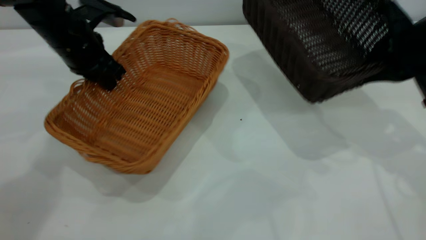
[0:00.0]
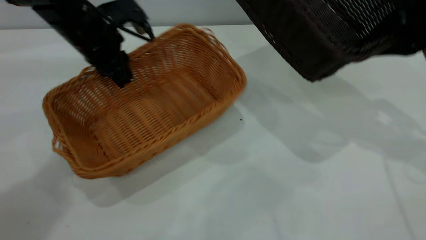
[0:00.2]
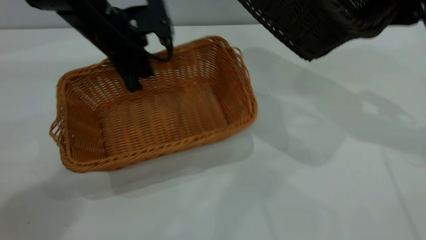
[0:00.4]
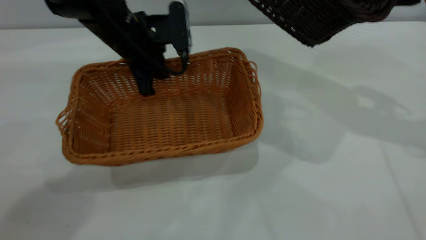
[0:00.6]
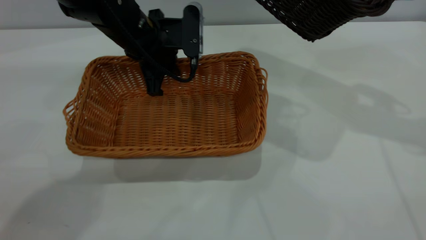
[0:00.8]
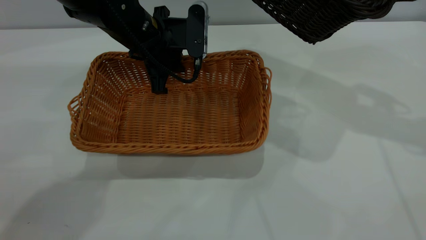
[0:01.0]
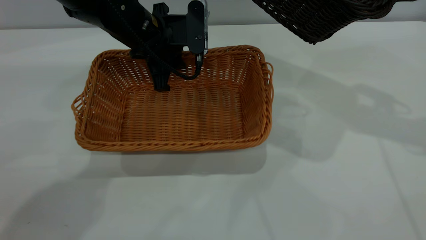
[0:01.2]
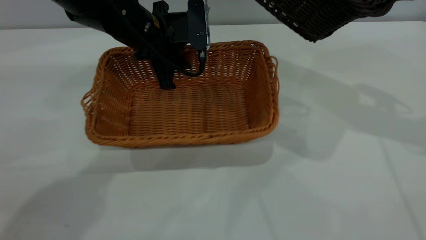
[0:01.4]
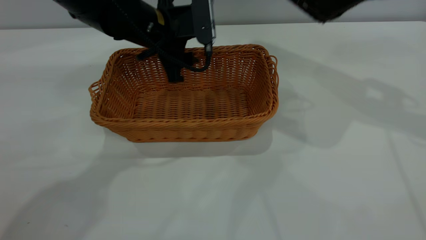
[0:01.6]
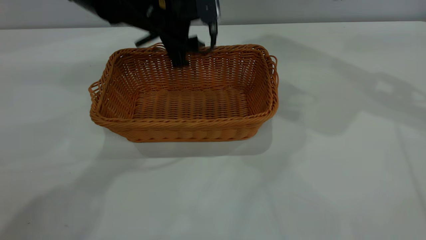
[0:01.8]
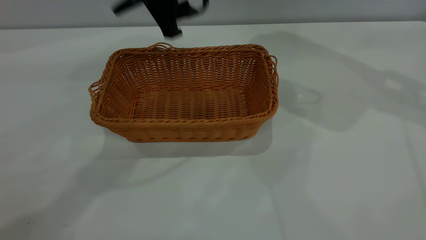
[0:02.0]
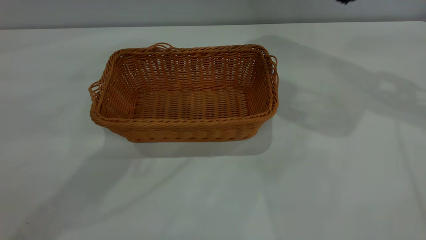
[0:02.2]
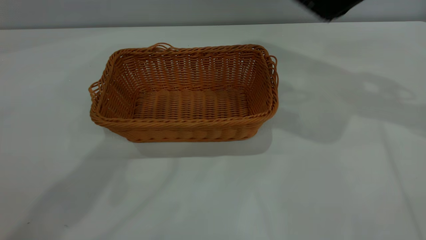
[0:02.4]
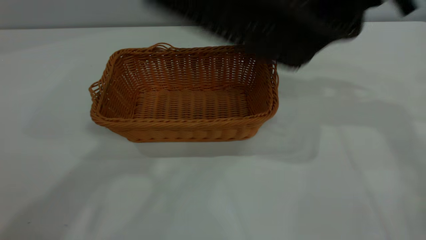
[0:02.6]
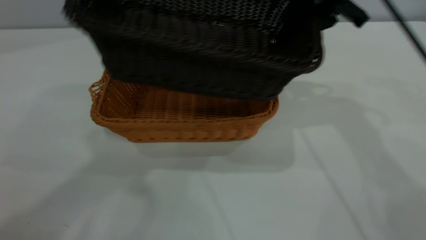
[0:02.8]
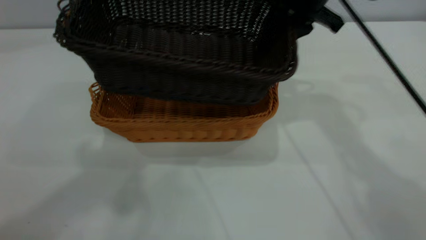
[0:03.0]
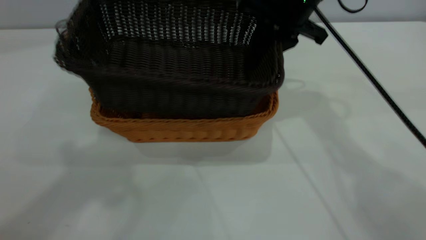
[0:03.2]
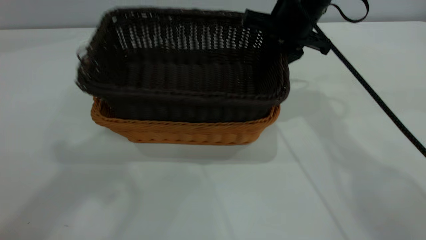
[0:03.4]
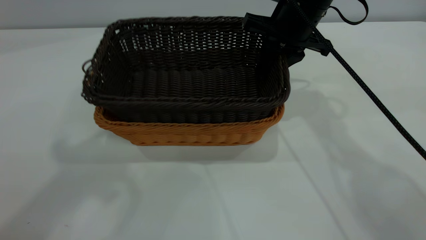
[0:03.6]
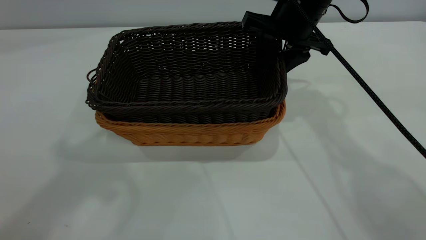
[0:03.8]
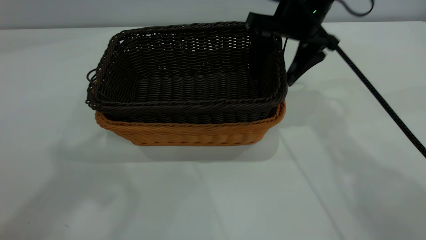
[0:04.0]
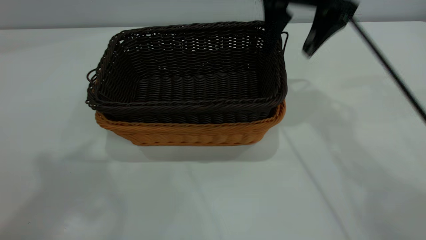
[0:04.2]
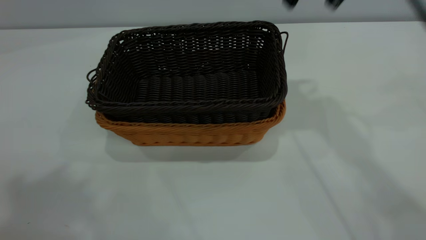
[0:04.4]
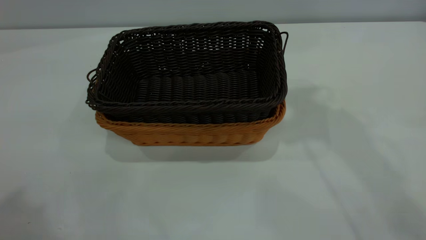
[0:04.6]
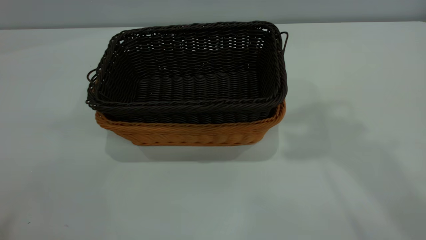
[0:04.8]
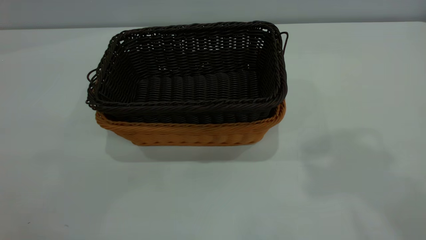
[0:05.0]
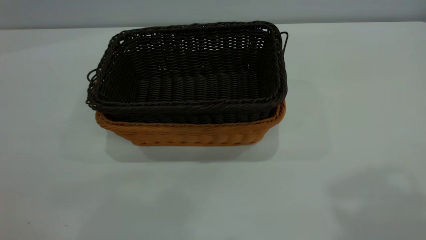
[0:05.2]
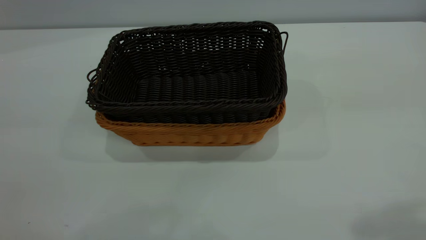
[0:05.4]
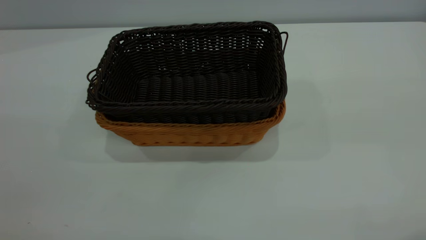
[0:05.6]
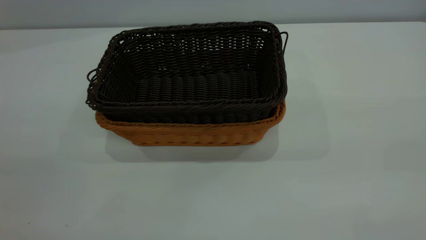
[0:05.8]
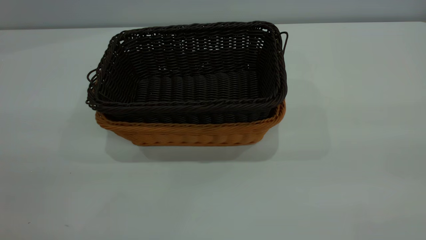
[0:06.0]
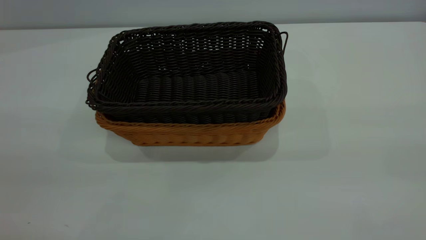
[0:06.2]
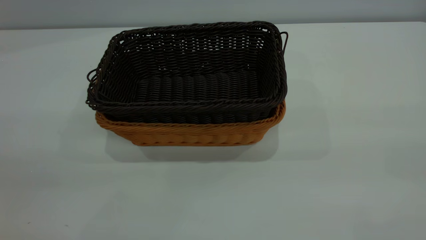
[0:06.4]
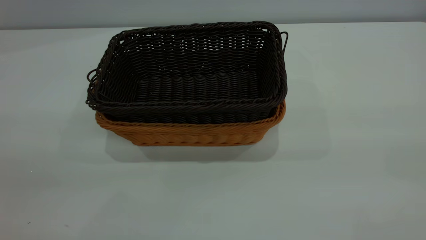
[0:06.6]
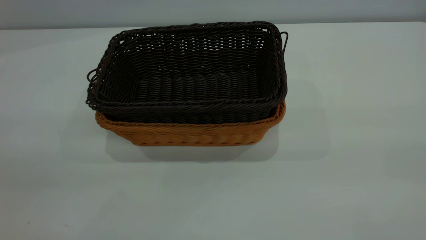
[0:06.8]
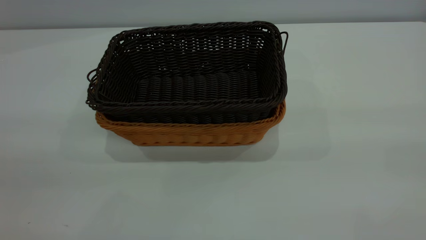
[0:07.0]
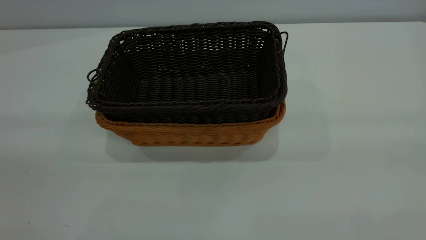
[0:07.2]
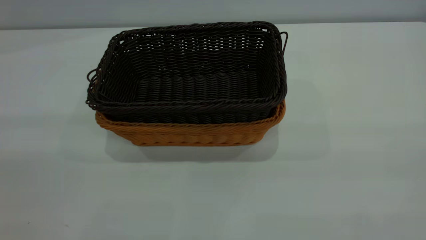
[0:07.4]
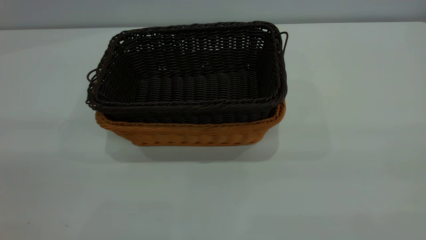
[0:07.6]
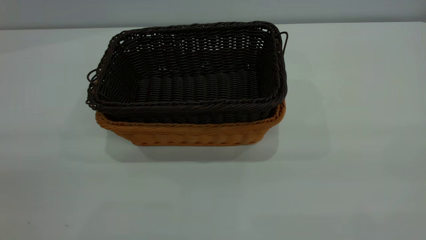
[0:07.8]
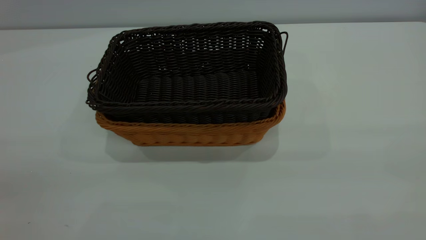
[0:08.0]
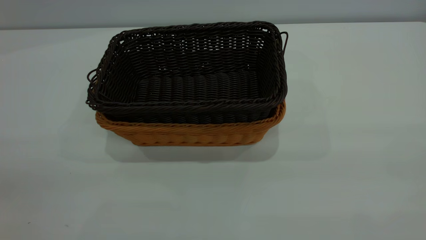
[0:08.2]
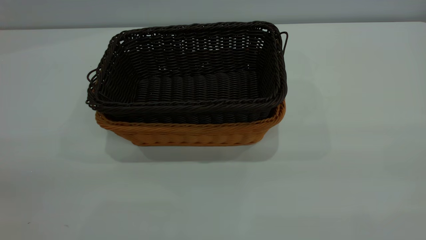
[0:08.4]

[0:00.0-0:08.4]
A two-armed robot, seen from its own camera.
Task of the whole recording: the left gripper grasp the brown basket and place it in the center of the table, the right gripper grasp the black basket and place it inside the brown one.
Step, 0:00.0 to 0:01.8: Place the light-colored basket in the center.
Step, 0:02.0 to 0:04.2: Place the dark basket on top of the light basket.
0:00.0 to 0:01.4: The right gripper travels upward and forward by about 10 cm, while the left gripper is displaced to the right by approximately 10 cm, and opens.
0:01.4 to 0:02.8: The left gripper travels upward and backward by roughly 40 cm; the right gripper is displaced to the left by about 15 cm.
0:02.8 to 0:04.2: The left gripper ends up roughly 5 cm from where it was. Meanwhile the right gripper reaches some 5 cm downward, then returns, and opens up.
0:04.2 to 0:05.6: The right gripper shifts approximately 30 cm backward.

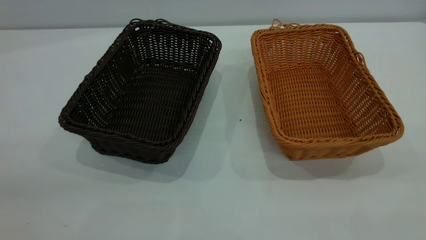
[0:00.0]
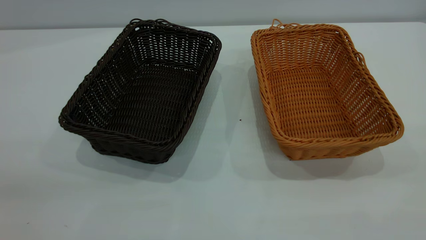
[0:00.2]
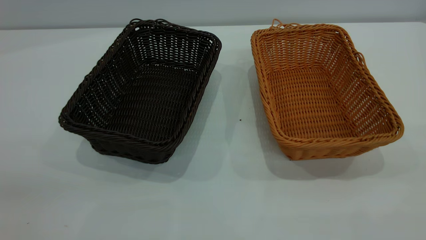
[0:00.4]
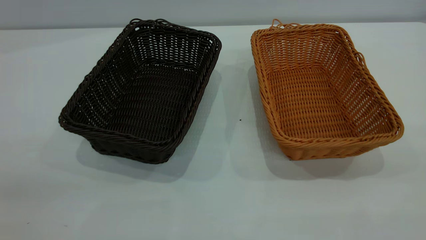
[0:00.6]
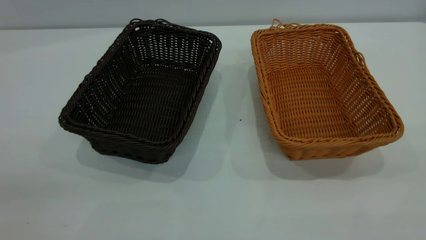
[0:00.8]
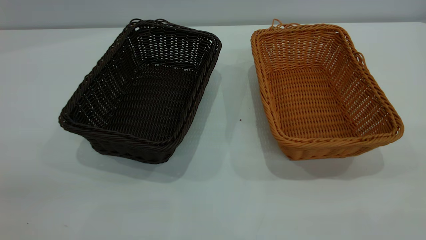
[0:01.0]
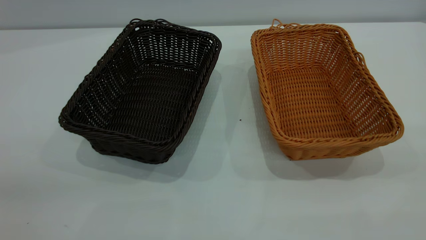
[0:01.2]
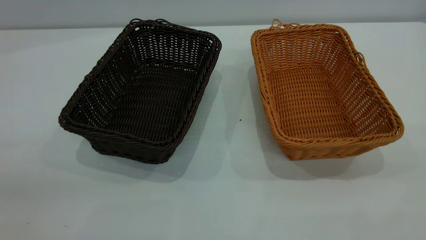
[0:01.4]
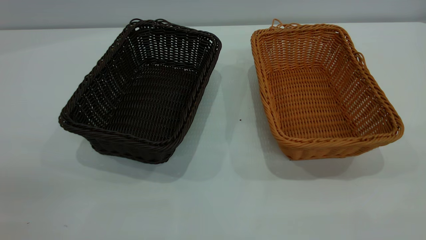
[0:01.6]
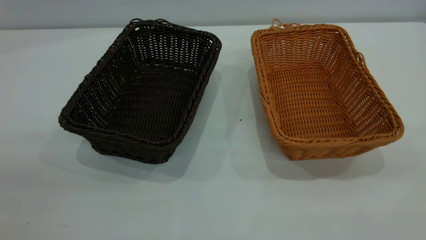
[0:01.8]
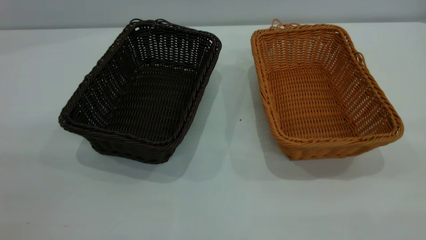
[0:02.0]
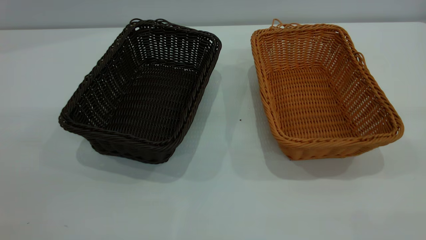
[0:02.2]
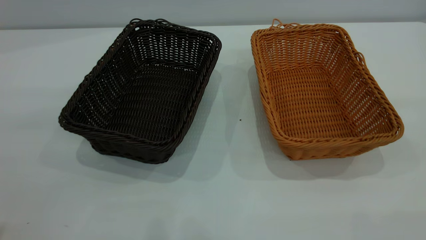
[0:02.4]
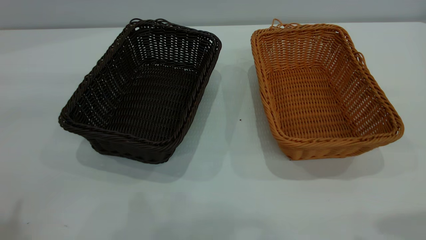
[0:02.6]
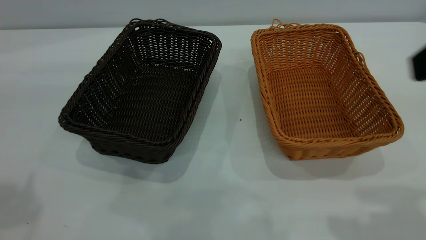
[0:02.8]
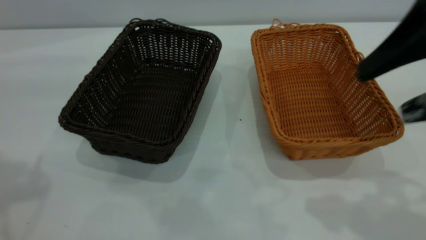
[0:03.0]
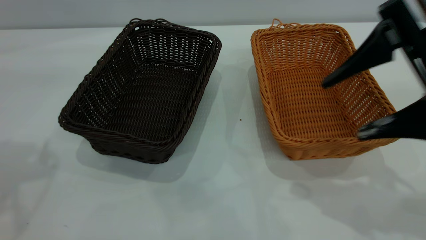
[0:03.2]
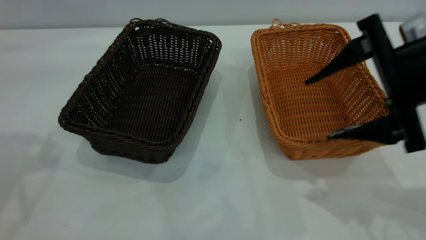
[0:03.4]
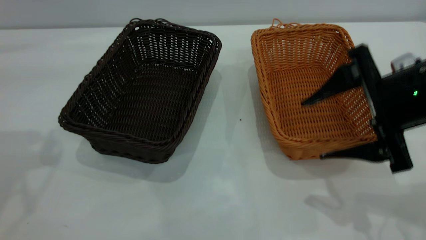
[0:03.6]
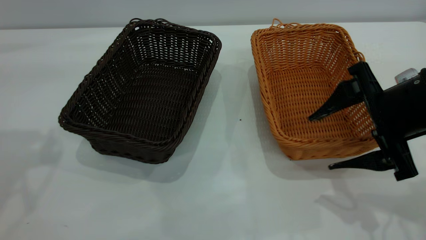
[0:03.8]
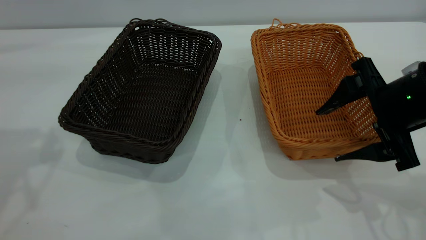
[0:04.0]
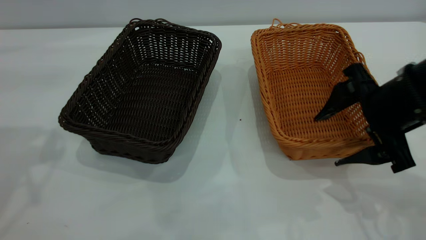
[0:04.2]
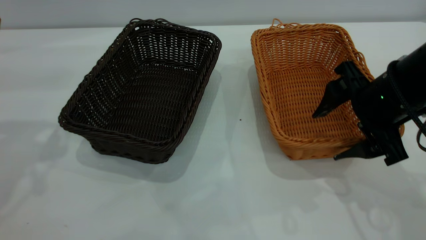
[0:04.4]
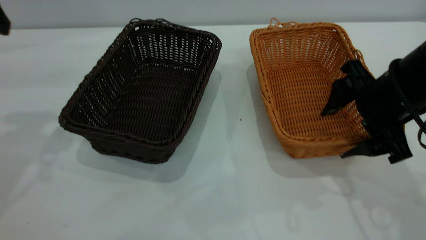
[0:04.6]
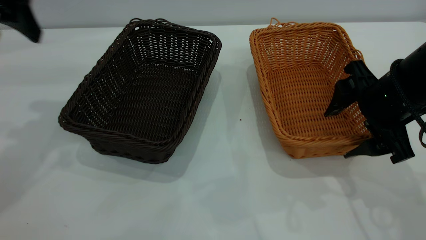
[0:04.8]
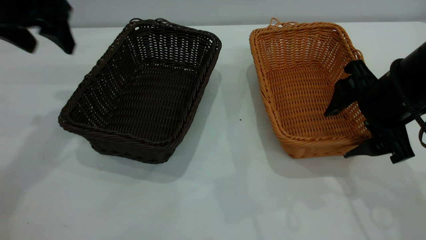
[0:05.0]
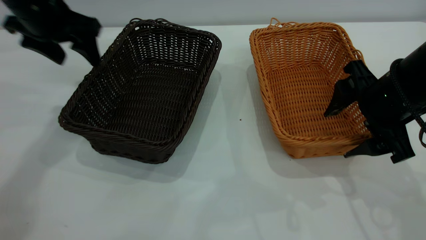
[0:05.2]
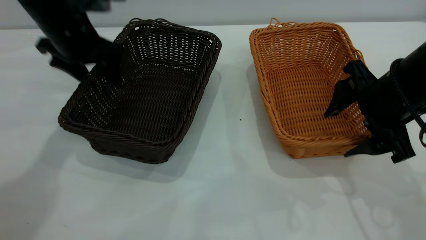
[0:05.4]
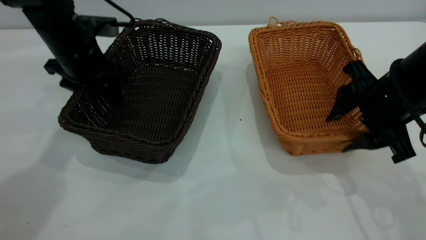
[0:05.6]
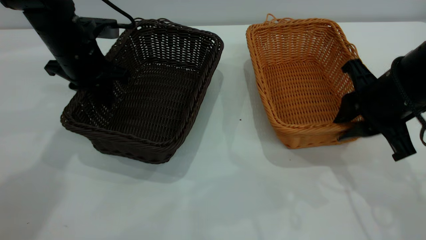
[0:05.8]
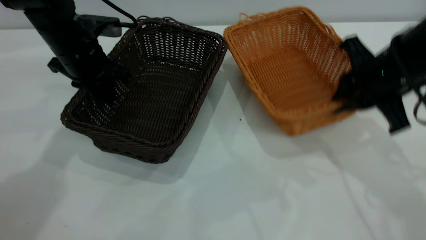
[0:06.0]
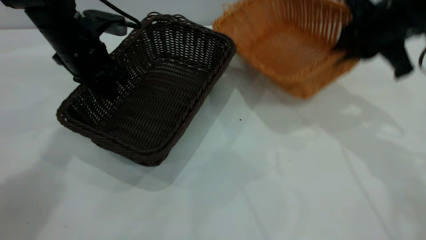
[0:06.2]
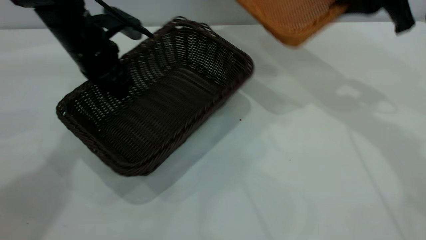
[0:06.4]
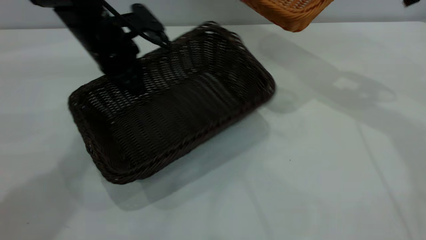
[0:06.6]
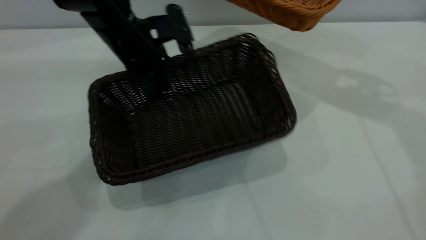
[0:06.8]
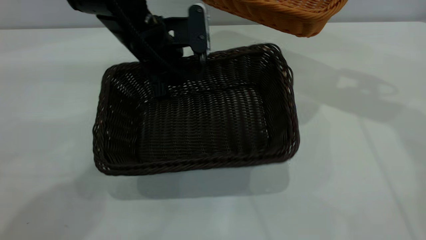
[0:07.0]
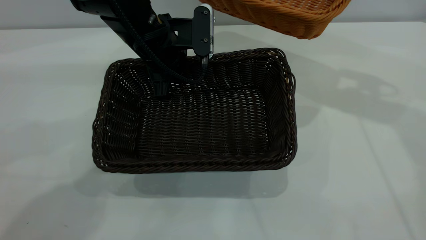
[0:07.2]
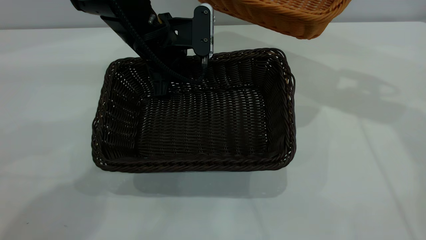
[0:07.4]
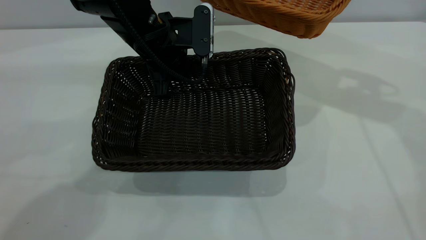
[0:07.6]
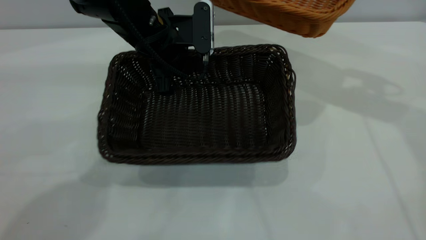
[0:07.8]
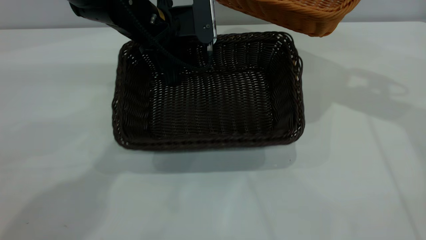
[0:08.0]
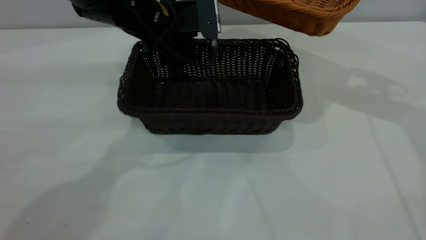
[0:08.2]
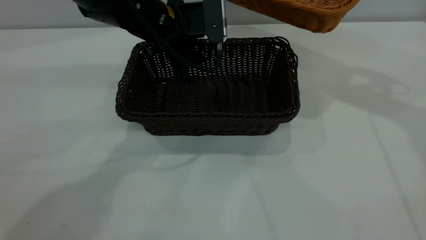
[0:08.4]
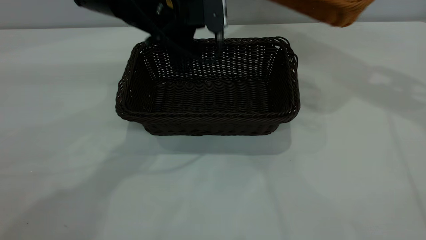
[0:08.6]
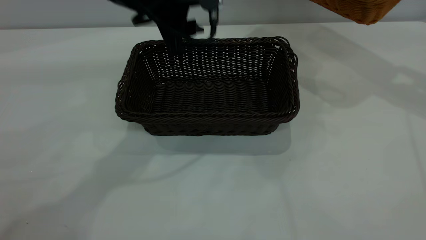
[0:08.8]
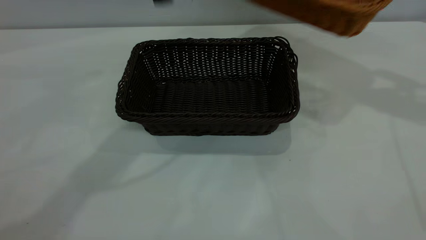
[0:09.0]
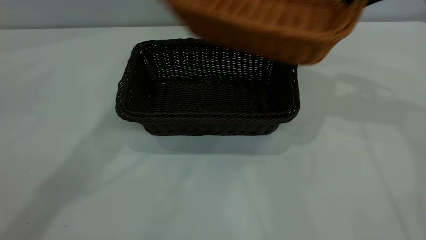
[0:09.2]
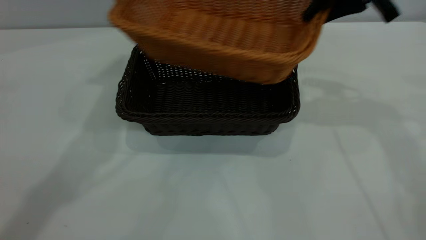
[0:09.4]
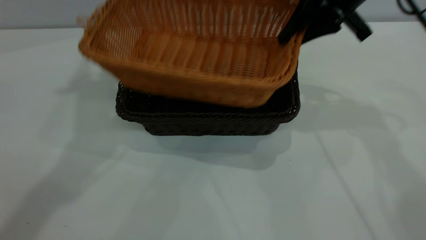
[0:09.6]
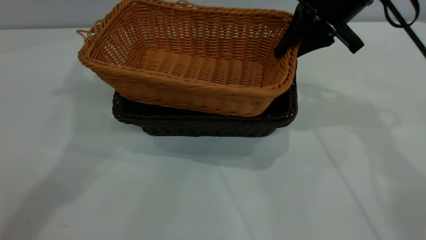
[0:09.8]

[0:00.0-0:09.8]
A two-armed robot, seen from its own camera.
Task of the whole recording: the left gripper grasp the black basket and place it in the center of the table, the right gripper grasp the brown basket and place it inside the black one.
Step, 0:02.8 to 0:05.6: Grasp the light basket with right gripper.
Step, 0:06.0 to 0:08.2: Place the dark basket in the center of the table with left gripper.
0:00.0 to 0:01.4: Both grippers stay put.
0:02.8 to 0:04.2: The right gripper shifts about 20 cm downward and forward.
0:04.2 to 0:05.6: The left gripper shifts approximately 25 cm downward, forward and to the right, and closes its fingers. Meanwhile the right gripper closes.
0:05.6 to 0:07.0: The right gripper is displaced upward and forward by roughly 20 cm, and closes its fingers, while the left gripper is displaced to the right by approximately 10 cm, and closes its fingers.
0:07.0 to 0:08.4: The left gripper opens its fingers.
0:08.4 to 0:09.8: The left gripper shifts roughly 30 cm upward and to the left; the right gripper shifts roughly 15 cm to the left and downward.
